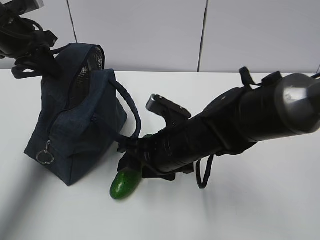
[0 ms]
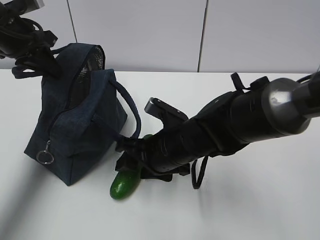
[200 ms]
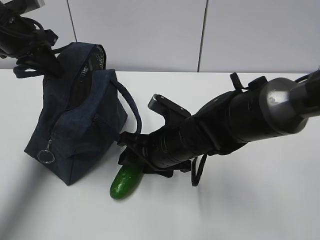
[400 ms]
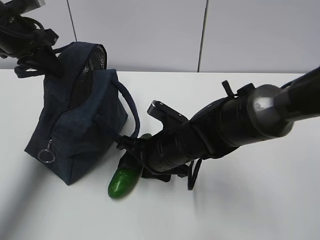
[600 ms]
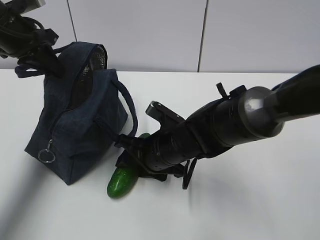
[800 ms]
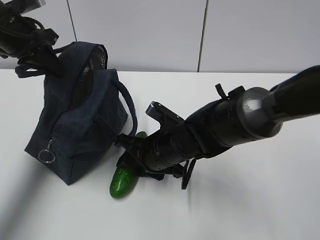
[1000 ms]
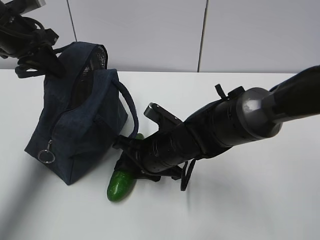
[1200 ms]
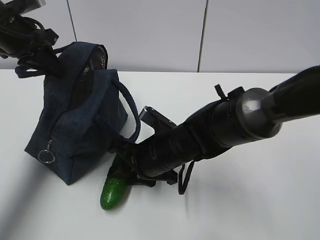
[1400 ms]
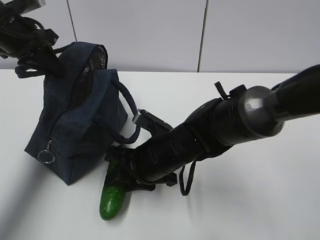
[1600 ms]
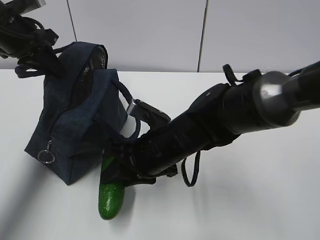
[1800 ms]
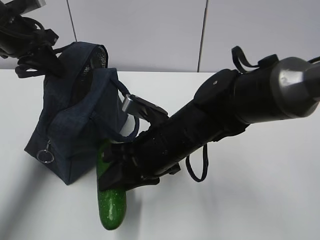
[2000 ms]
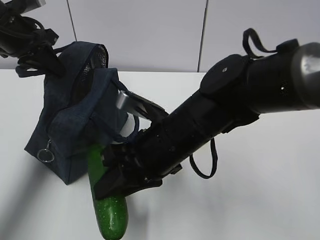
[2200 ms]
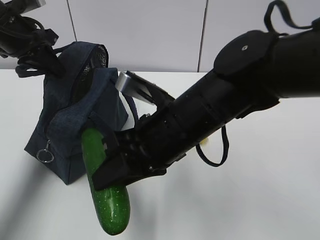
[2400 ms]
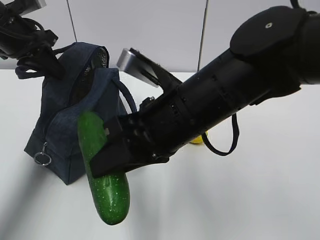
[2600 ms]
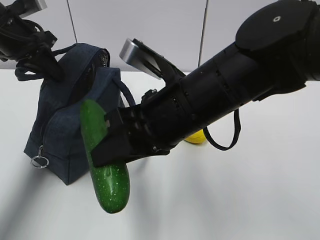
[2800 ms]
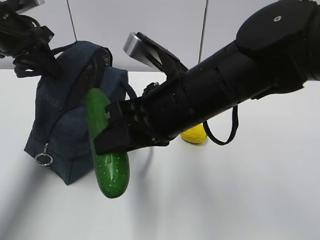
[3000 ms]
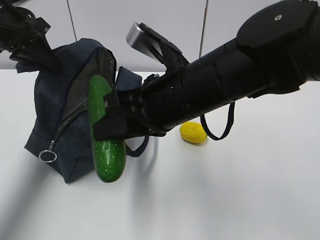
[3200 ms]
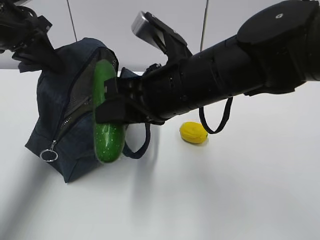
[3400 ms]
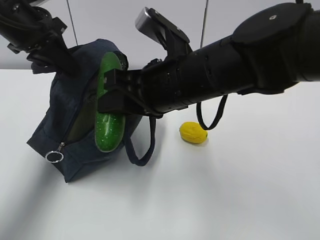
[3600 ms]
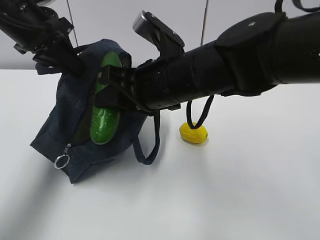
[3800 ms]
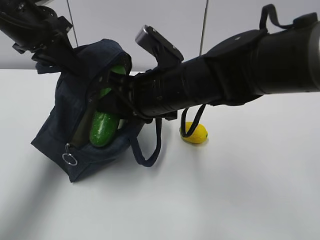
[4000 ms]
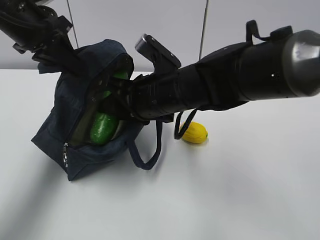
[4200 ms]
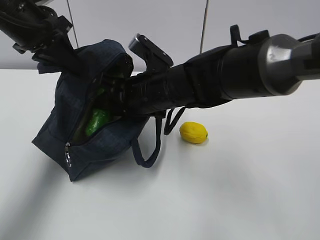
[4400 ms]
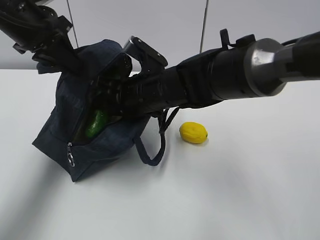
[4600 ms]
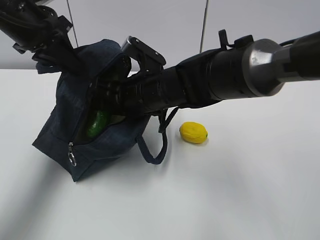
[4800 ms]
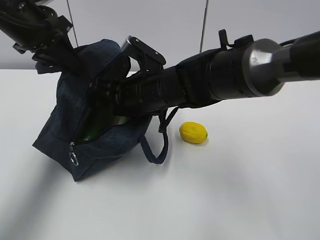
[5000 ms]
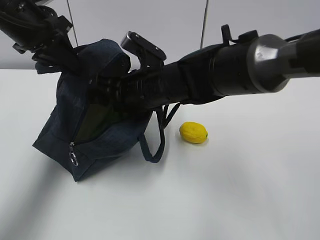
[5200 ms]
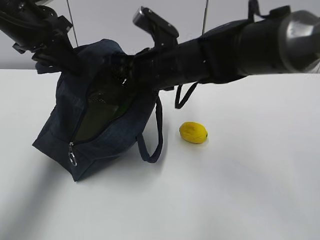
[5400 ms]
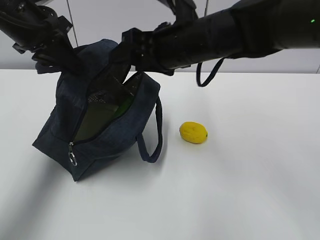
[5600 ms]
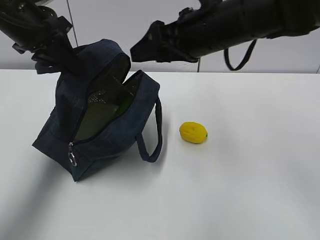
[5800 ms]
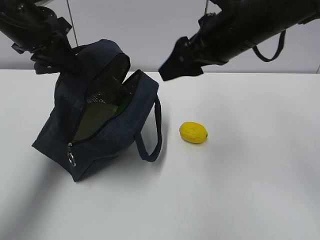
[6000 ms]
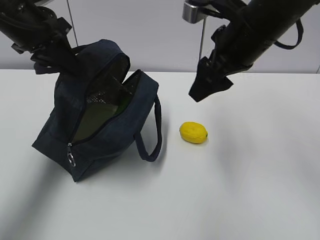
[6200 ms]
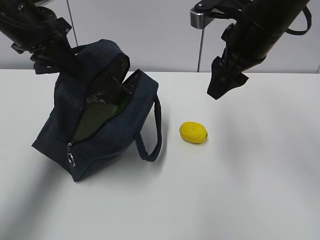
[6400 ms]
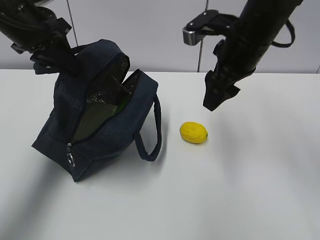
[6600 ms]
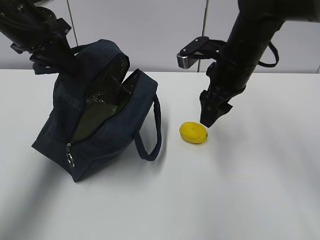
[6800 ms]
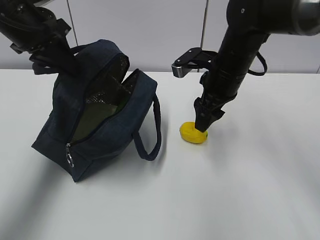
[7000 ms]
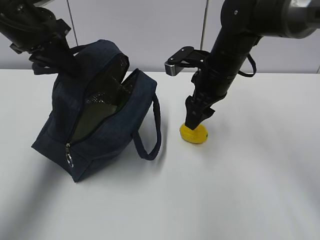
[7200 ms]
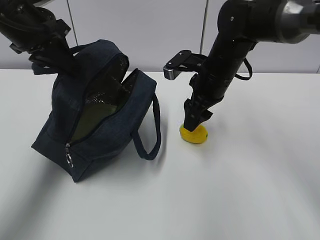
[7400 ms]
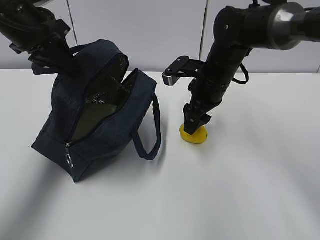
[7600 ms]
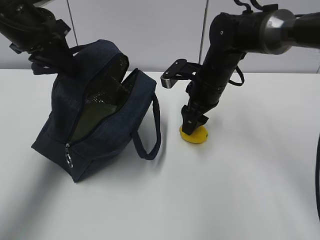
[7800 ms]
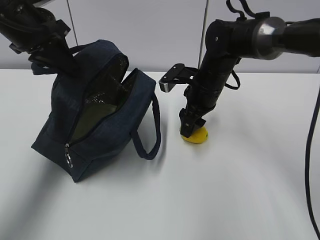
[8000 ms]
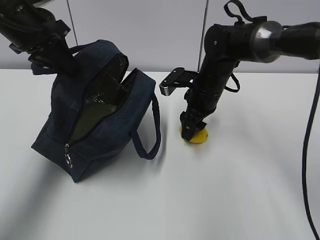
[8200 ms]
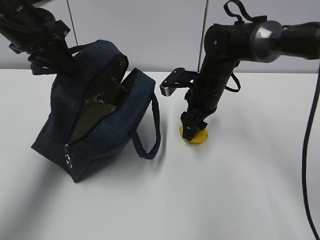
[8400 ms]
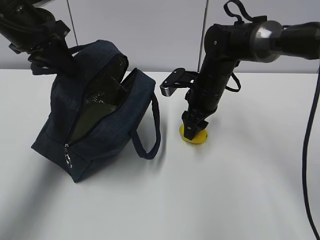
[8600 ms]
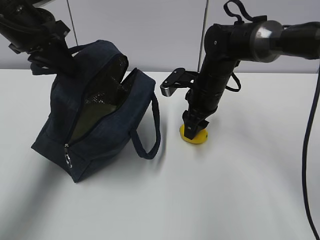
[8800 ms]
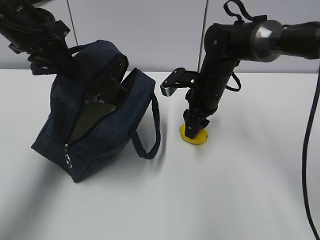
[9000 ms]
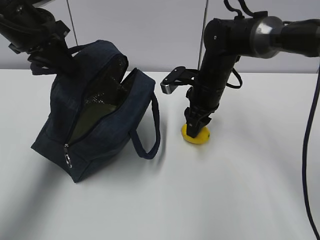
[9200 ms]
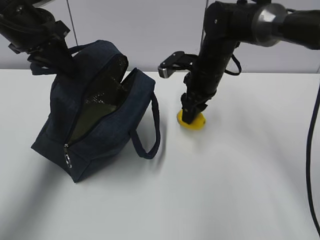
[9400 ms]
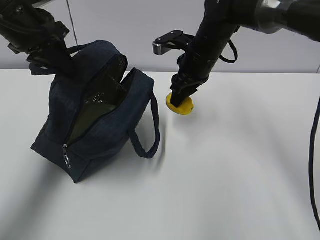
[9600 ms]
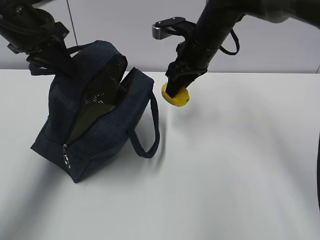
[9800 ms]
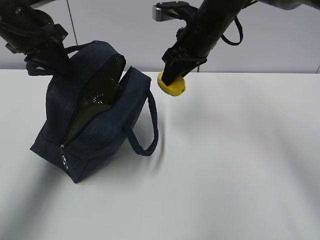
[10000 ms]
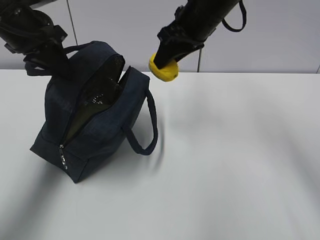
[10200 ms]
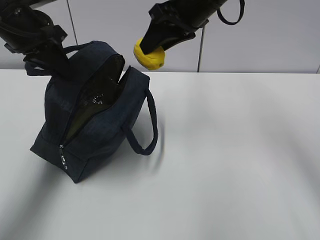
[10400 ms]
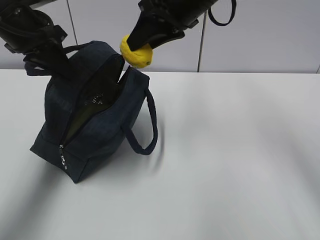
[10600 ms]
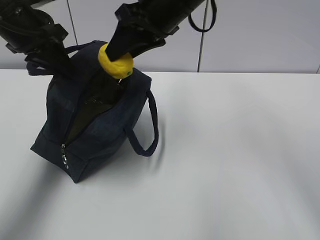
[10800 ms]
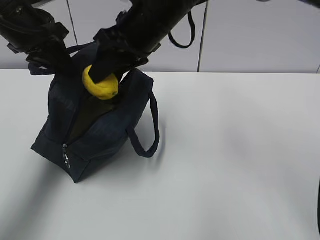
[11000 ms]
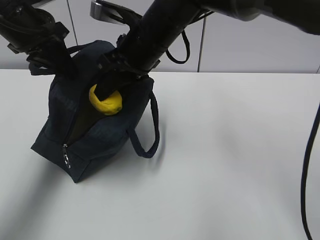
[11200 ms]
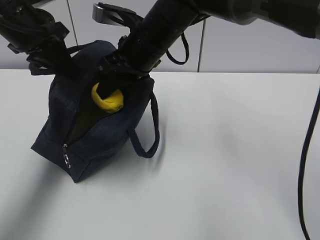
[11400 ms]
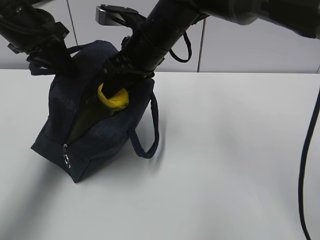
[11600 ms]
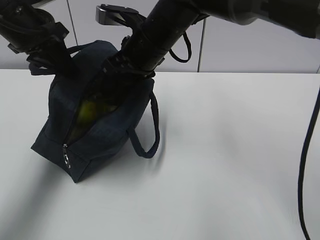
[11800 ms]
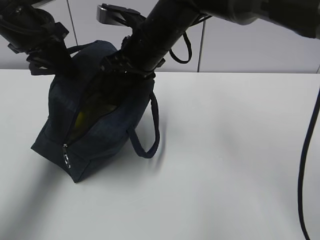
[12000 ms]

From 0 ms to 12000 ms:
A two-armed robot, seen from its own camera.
Step, from 600 ms to 3400 ms: Grab the lemon with your right hand.
Step, from 6800 ms to 10200 ms: Grab the lunch bag with your right hand.
From 0 ms to 1600 ms: The grippers make only small movements.
From 1600 ms to 3000 ms: The right gripper travels upward by about 15 cm.
From 3000 ms to 4400 ms: The right gripper travels forward and downward by roughly 10 cm. Meanwhile the left gripper ends up approximately 5 cm from where it was.
From 4400 ms to 6000 ms: The right gripper shifts some 15 cm to the right and upward, and opens up.
From 6000 ms to 7600 ms: The right gripper shifts some 15 cm downward and forward.
From 7600 ms to 9000 ms: The grippers make only small movements.
From 9000 ms to 10400 ms: The right gripper moves upward, roughly 20 cm.
From 10400 ms to 12000 ms: The right gripper shifts roughly 10 cm to the left and downward.

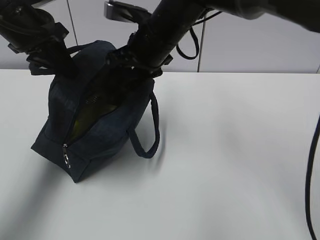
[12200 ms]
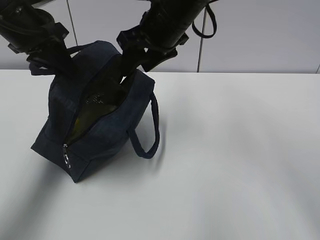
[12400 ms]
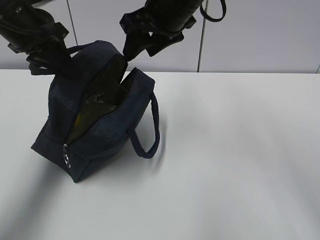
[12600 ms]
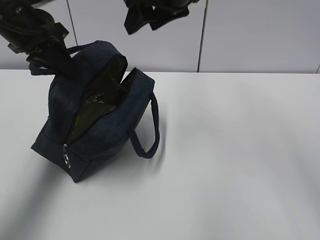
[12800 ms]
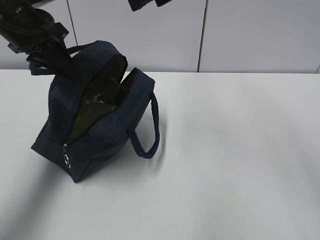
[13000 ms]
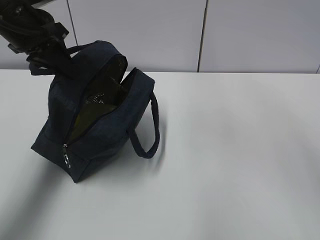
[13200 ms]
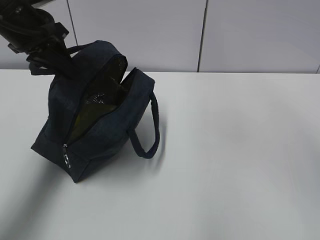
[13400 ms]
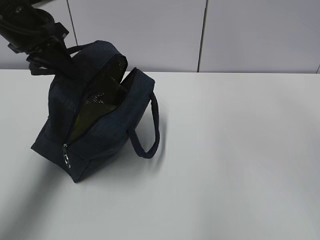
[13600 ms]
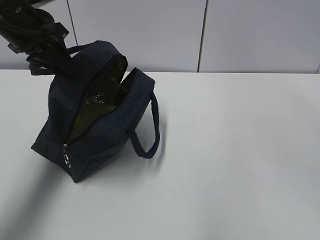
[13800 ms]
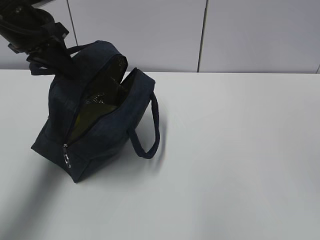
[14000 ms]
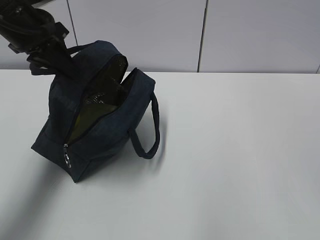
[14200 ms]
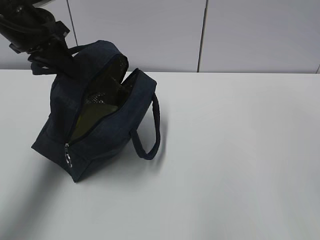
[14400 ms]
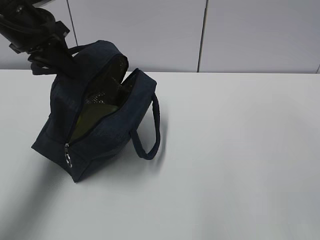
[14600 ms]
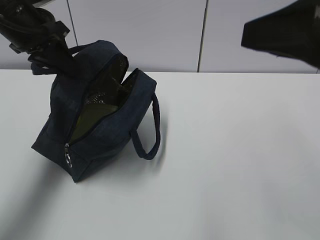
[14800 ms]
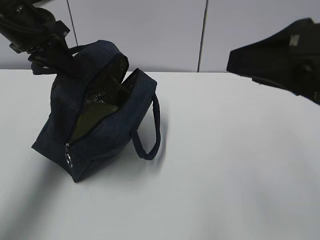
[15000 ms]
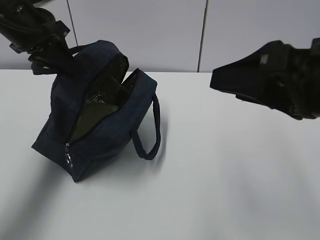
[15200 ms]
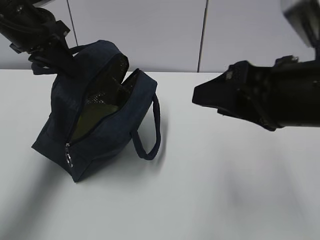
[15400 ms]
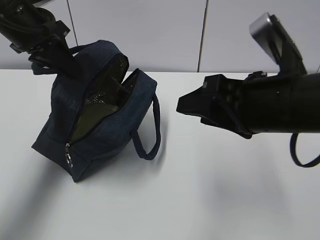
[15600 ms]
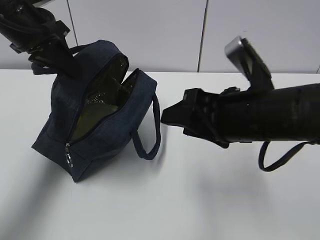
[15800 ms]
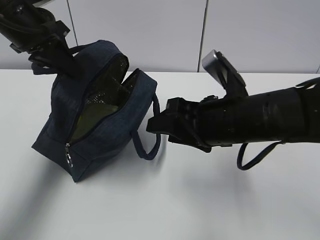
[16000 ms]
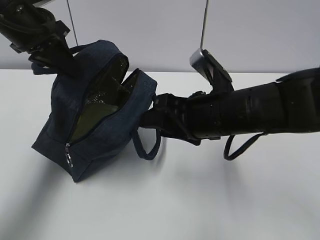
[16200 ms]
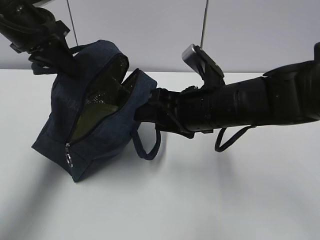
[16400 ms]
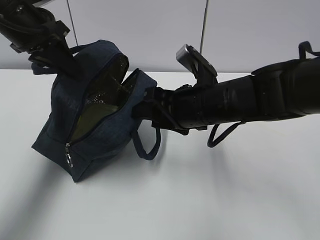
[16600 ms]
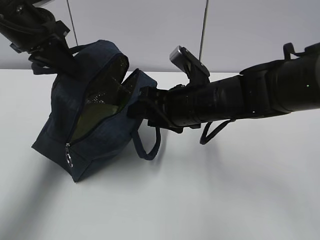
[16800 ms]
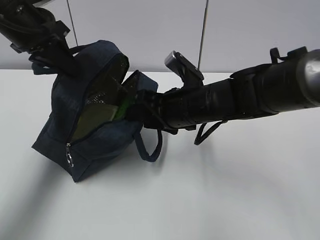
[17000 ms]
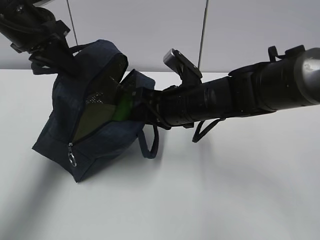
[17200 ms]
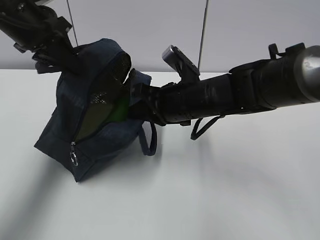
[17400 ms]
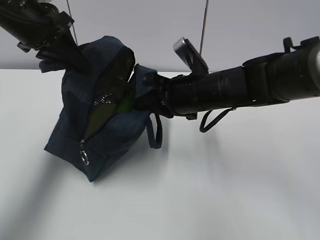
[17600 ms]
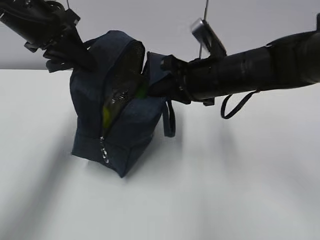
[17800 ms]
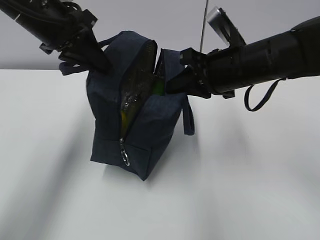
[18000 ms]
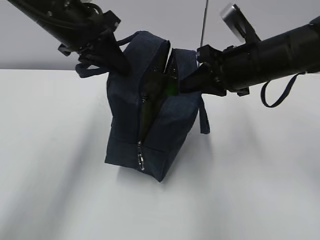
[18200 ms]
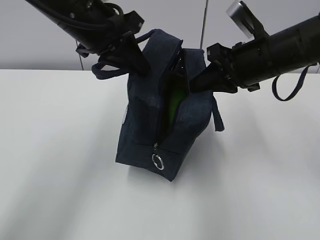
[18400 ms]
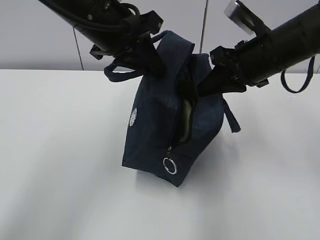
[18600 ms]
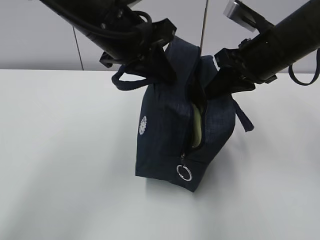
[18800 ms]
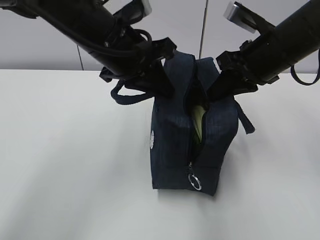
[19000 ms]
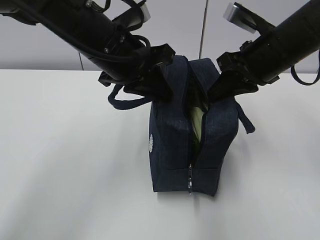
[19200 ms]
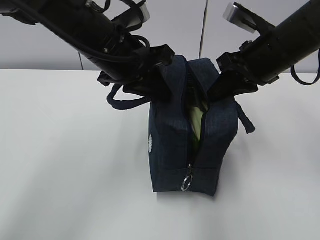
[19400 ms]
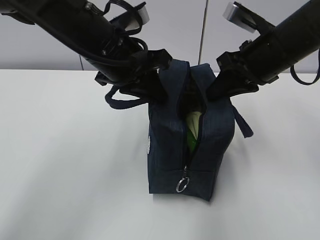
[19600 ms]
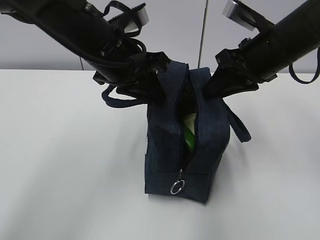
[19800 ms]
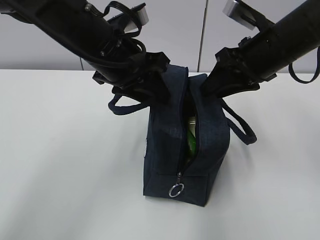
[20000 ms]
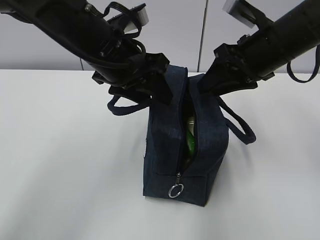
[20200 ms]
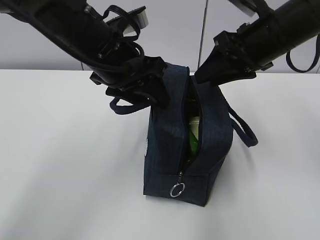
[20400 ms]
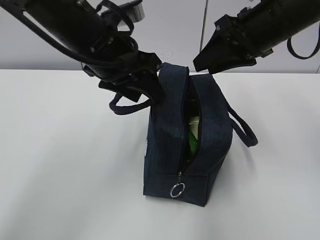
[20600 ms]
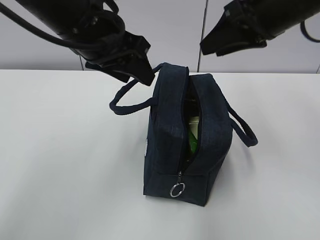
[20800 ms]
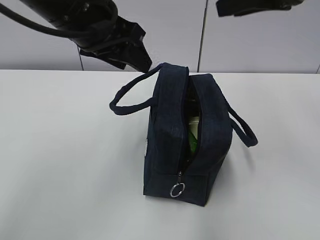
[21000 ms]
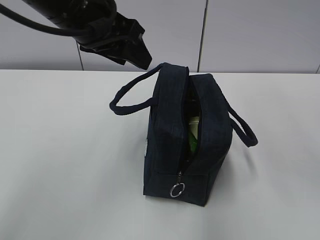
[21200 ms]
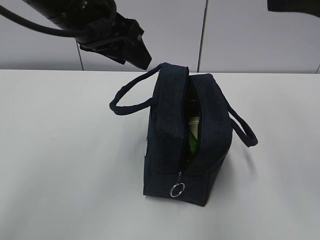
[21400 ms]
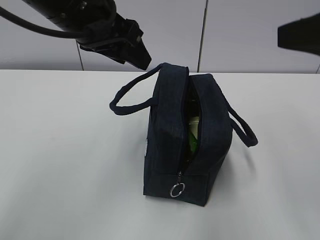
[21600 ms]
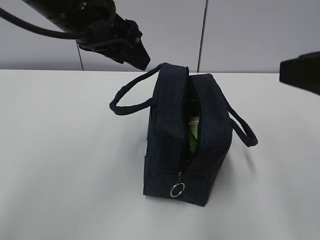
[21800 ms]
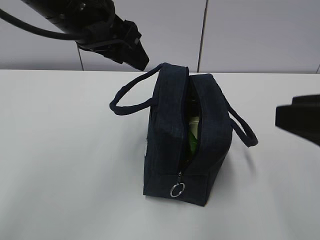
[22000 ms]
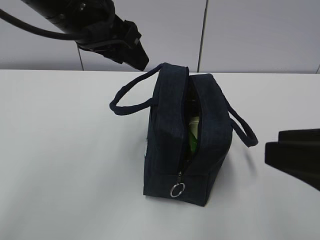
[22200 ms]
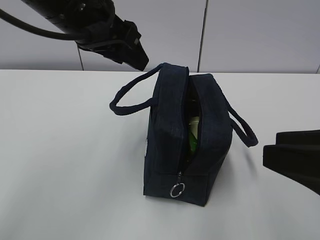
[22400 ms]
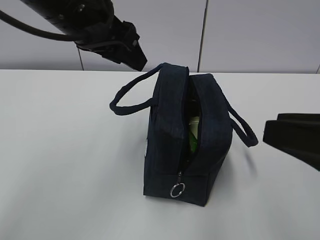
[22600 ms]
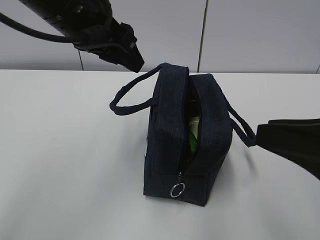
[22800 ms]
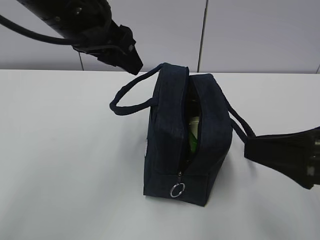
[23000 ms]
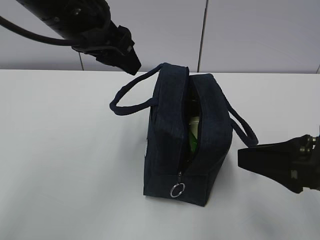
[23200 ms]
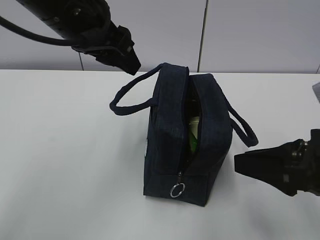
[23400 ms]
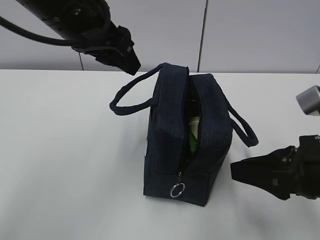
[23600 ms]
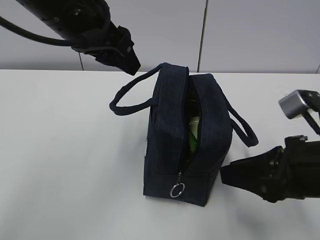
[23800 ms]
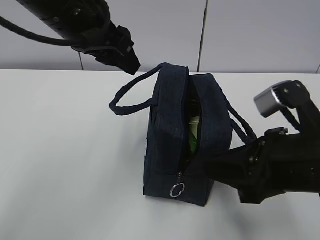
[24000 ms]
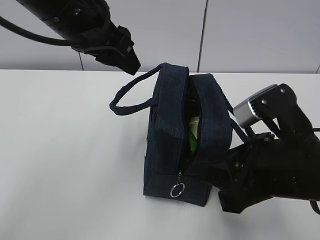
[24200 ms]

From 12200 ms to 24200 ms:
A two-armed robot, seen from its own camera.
From 12200 ms to 13800 ms: The right gripper heads upward and backward, covering approximately 30 cm.
From 13800 ms to 15200 ms: The right gripper travels downward and backward by roughly 25 cm.
From 15200 ms to 16600 ms: The right gripper travels forward, downward and to the left by about 20 cm.
From 16600 ms to 18200 ms: The left gripper shifts about 5 cm to the right; the right gripper travels to the right and upward by some 10 cm, and closes up.
From 18200 ms to 19800 ms: The right gripper opens its fingers. The left gripper moves to the right, approximately 5 cm.
From 19800 ms to 21200 ms: The right gripper heads upward and backward, covering roughly 15 cm; the left gripper travels upward by about 5 cm, and opens its fingers.
From 21200 ms to 22600 ms: The right gripper is displaced backward and downward by roughly 20 cm.
From 22600 ms to 24200 ms: The right gripper moves downward, to the left and forward, approximately 10 cm.
